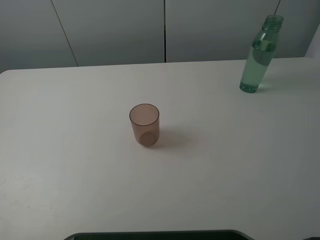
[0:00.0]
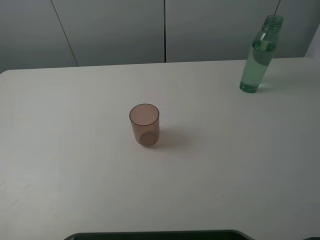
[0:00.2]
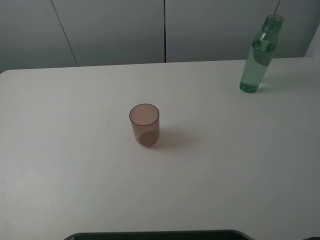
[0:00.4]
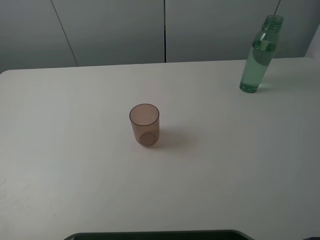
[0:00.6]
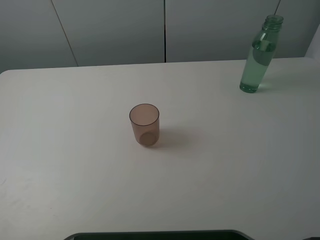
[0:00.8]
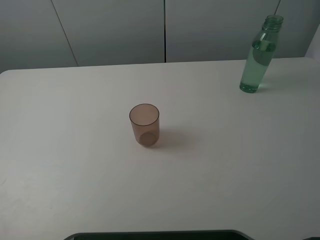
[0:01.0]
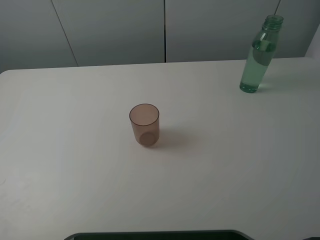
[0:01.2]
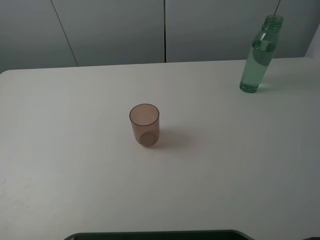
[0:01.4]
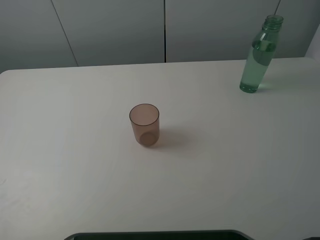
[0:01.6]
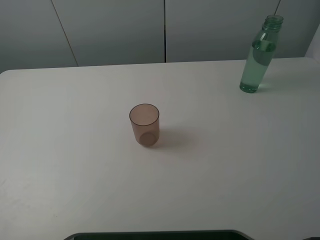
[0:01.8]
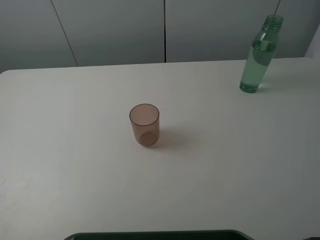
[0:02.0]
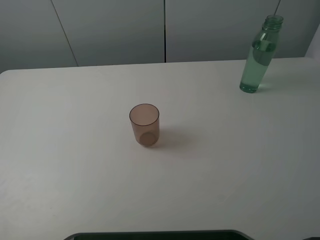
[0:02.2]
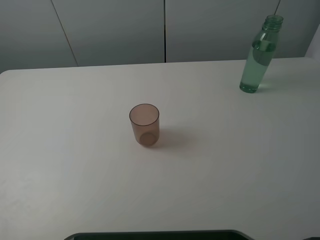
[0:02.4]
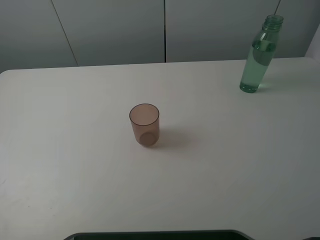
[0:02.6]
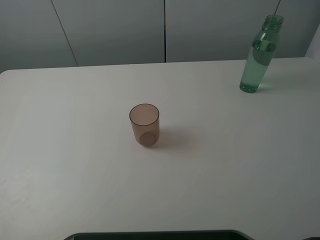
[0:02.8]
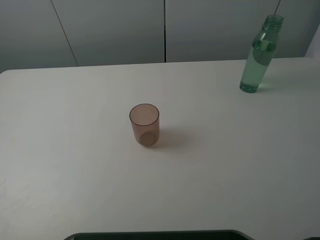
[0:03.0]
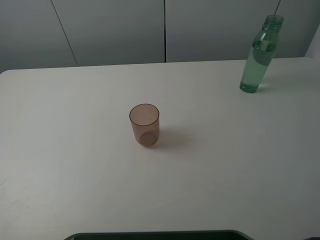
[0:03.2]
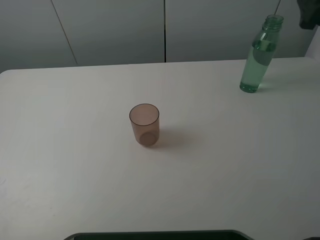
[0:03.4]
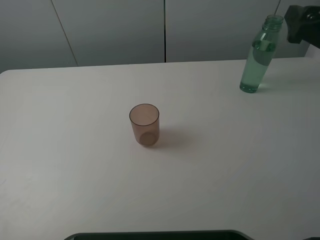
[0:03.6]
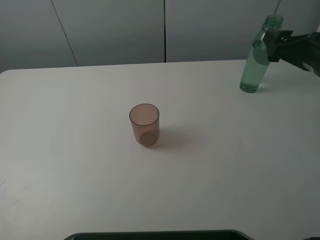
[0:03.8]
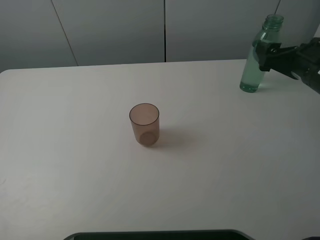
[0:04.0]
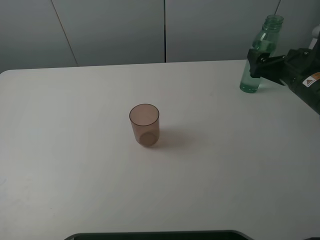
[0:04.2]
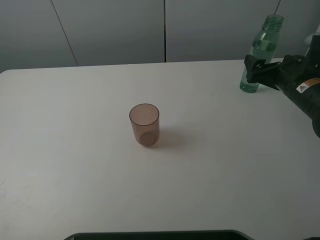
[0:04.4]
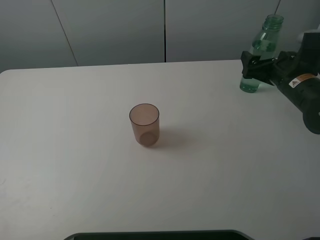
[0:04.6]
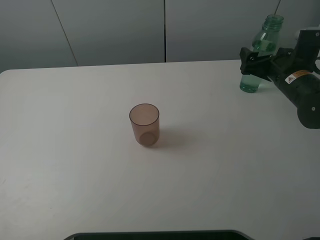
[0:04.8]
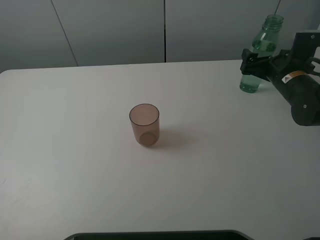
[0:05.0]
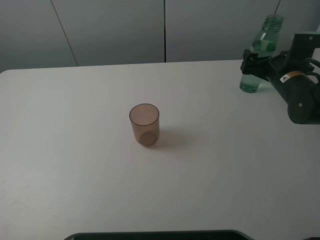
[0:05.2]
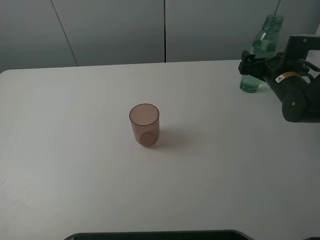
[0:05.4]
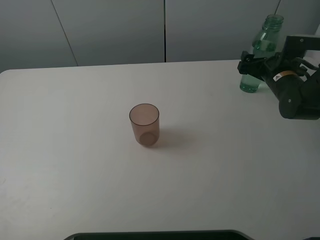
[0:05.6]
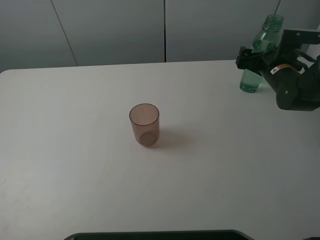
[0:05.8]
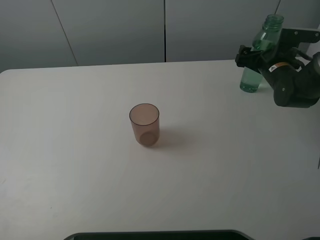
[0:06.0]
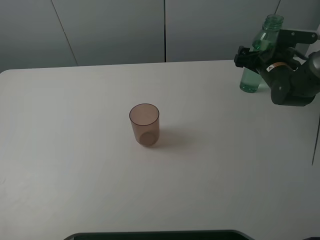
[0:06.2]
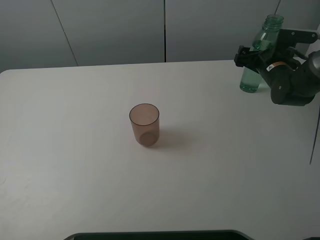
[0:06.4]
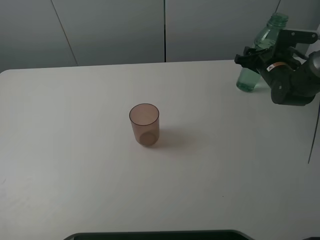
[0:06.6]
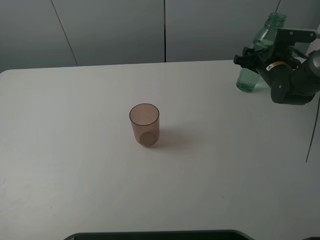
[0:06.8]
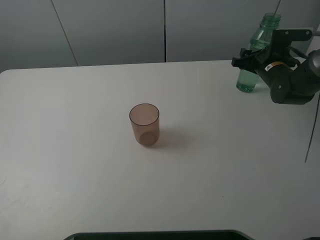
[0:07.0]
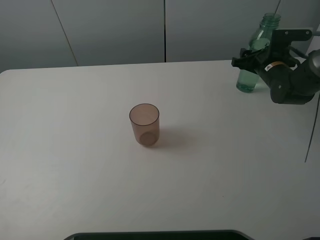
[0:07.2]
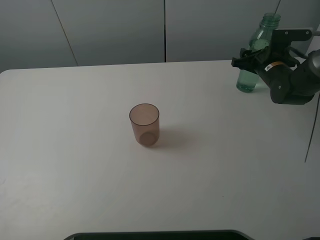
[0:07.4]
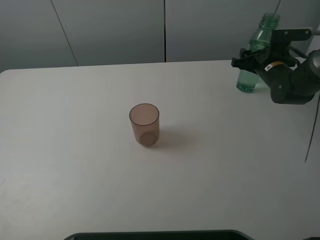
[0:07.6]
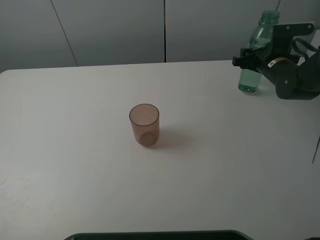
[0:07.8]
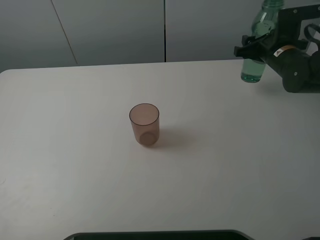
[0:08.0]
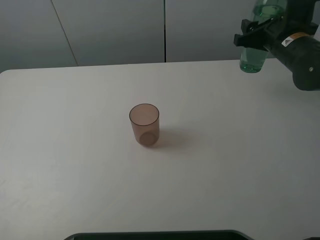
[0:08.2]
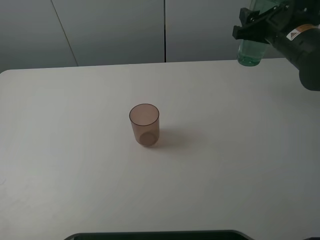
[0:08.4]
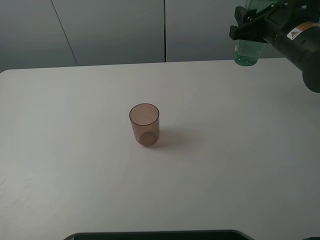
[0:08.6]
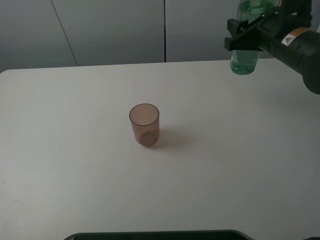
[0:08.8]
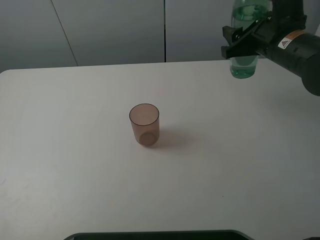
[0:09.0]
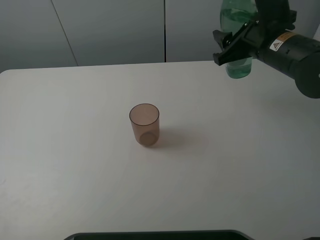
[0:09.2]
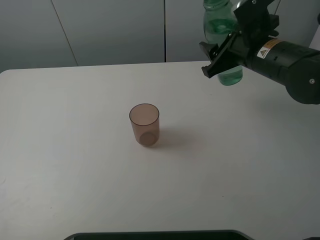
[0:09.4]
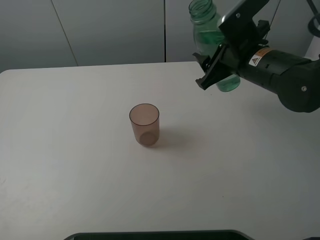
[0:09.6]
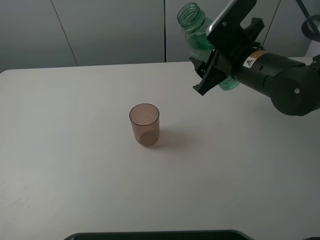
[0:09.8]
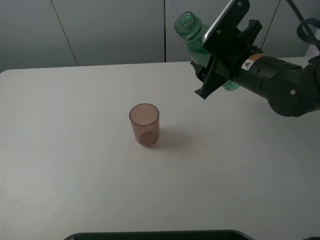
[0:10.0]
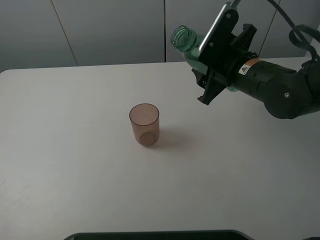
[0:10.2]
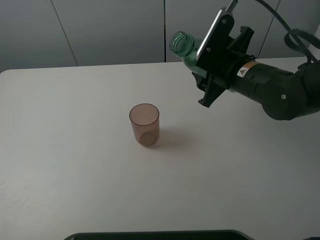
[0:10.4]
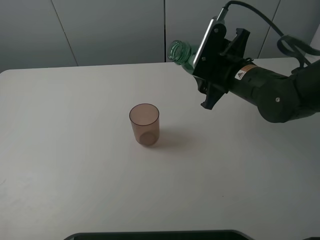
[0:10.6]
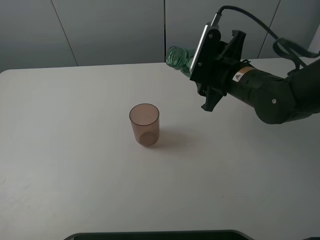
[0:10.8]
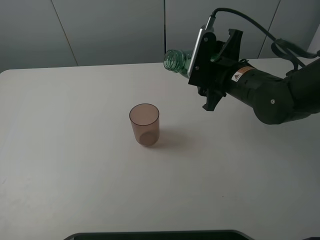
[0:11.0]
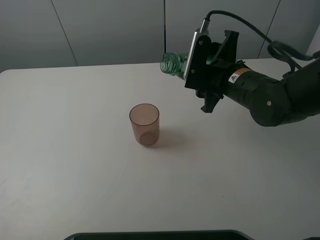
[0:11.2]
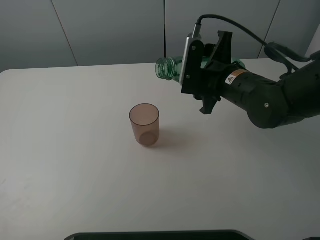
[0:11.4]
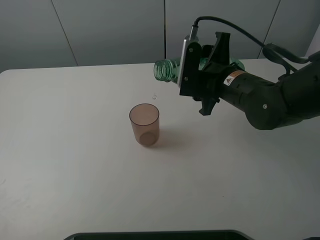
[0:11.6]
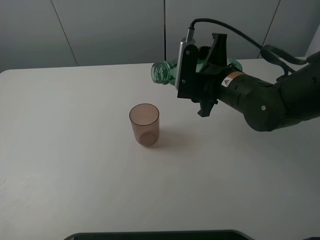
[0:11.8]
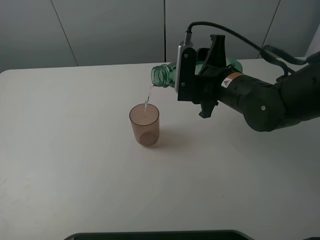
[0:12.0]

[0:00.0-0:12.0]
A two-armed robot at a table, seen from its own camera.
Task of the whole recording: pick up the bottle filled with water and pour it into the pink cup.
Step, 0:00.0 to 0:06.6: Grasp the green bottle with the right gripper.
0:00.0 to 0:01.6: Neither gripper changes place.
0:03.0 to 0:04.4: The right gripper heads downward and forward, covering approximately 20 cm.
0:04.4 to 0:06.0: The right gripper goes approximately 10 cm forward.
0:06.0 to 0:07.6: The right gripper closes up.
0:07.6 to 0:09.0: The right gripper moves upward, backward and to the left, roughly 15 cm.
0:09.0 to 0:10.4: The right gripper moves to the left, about 5 cm.

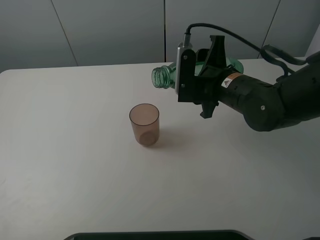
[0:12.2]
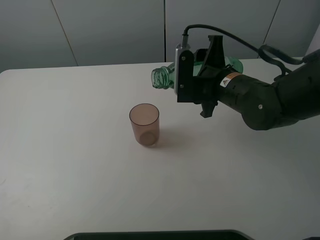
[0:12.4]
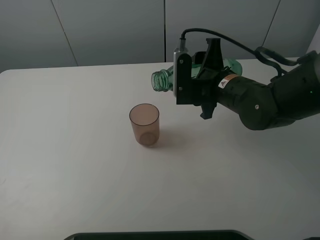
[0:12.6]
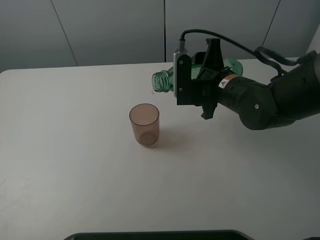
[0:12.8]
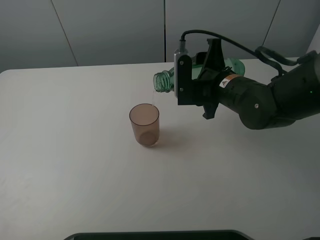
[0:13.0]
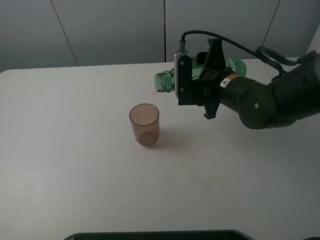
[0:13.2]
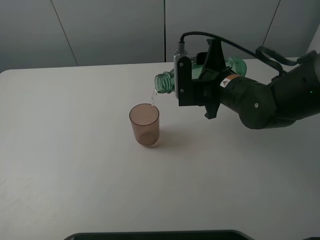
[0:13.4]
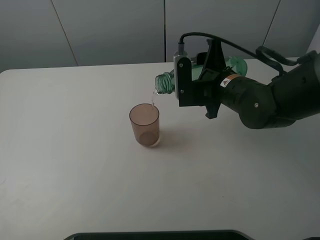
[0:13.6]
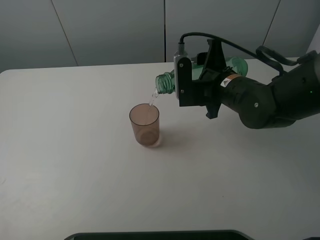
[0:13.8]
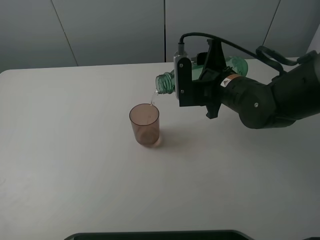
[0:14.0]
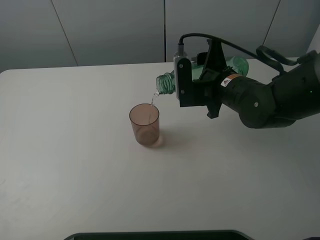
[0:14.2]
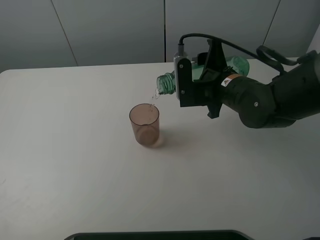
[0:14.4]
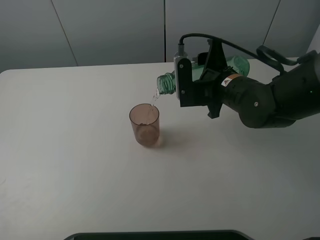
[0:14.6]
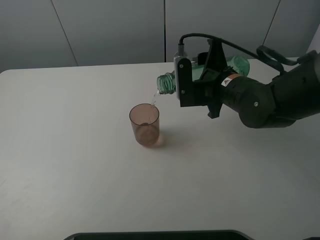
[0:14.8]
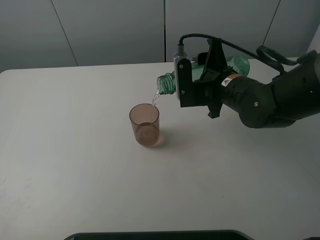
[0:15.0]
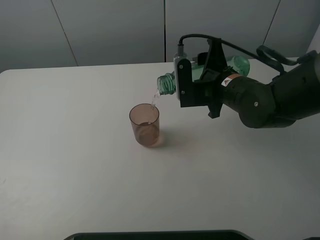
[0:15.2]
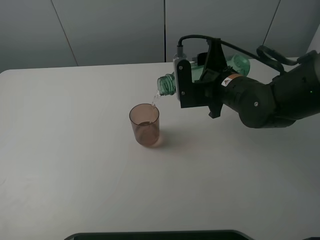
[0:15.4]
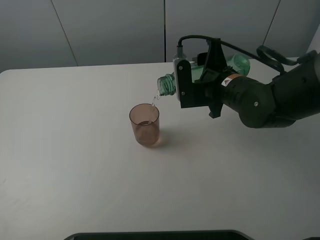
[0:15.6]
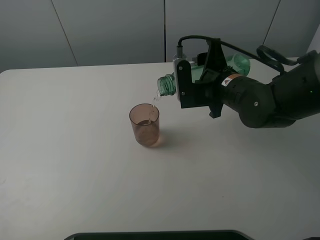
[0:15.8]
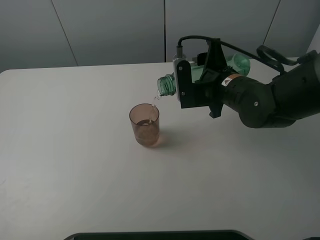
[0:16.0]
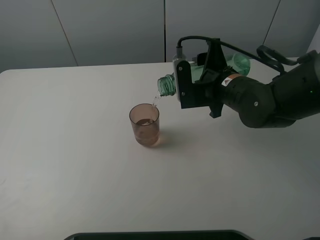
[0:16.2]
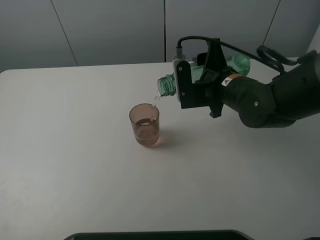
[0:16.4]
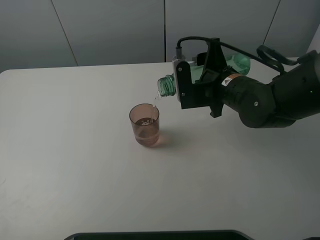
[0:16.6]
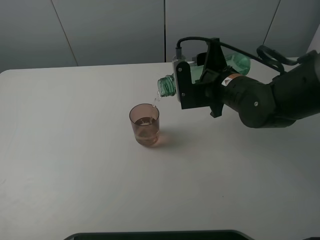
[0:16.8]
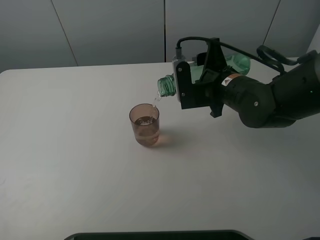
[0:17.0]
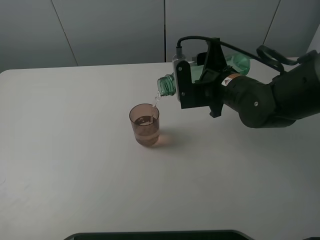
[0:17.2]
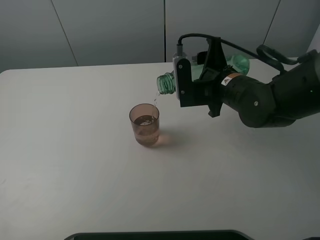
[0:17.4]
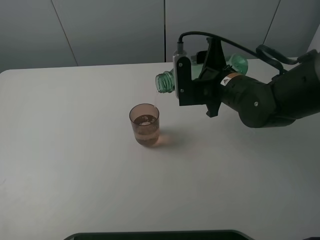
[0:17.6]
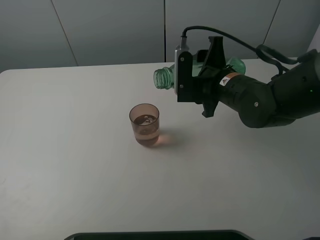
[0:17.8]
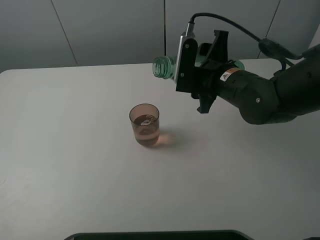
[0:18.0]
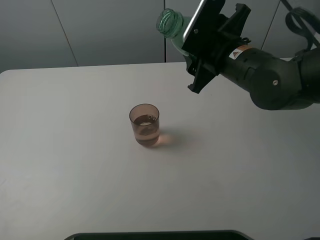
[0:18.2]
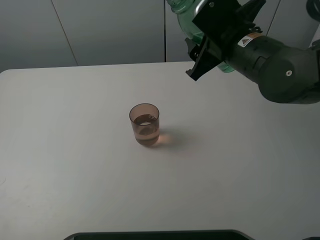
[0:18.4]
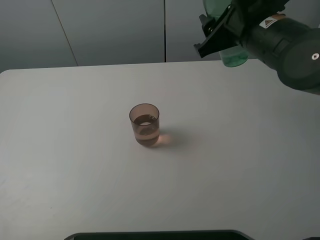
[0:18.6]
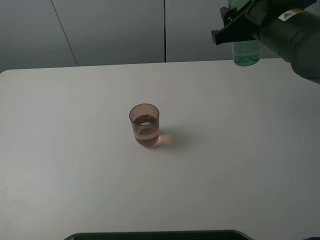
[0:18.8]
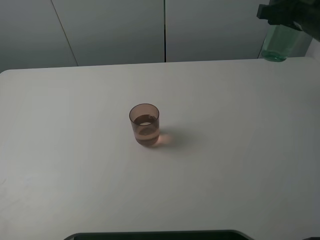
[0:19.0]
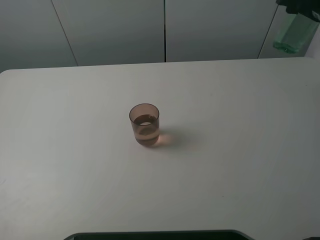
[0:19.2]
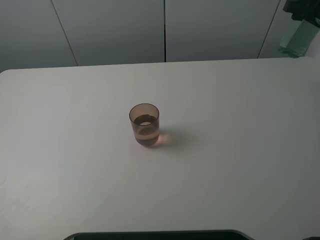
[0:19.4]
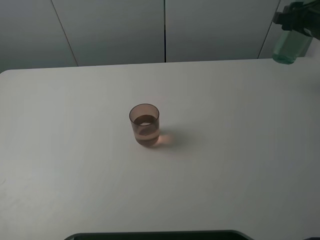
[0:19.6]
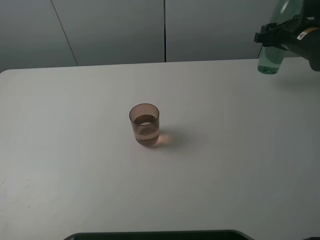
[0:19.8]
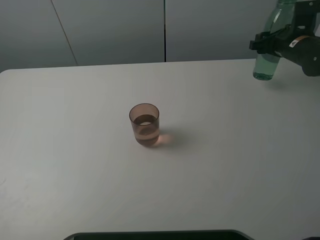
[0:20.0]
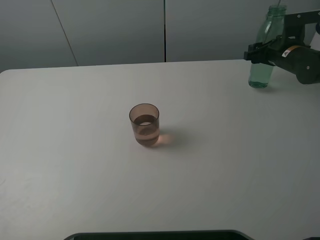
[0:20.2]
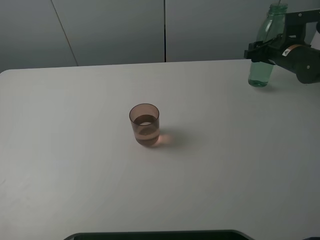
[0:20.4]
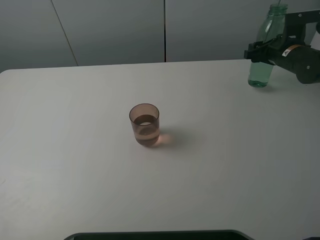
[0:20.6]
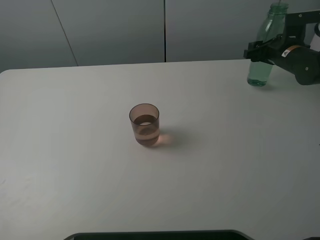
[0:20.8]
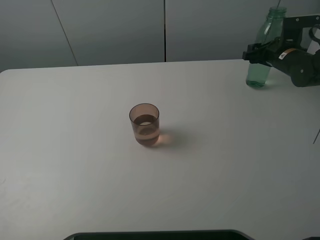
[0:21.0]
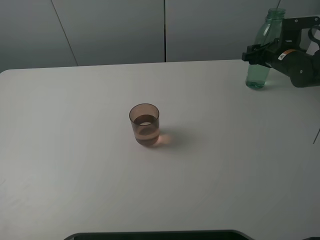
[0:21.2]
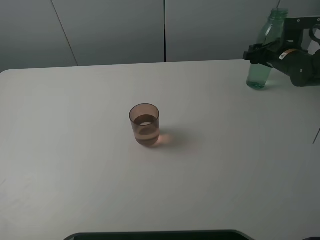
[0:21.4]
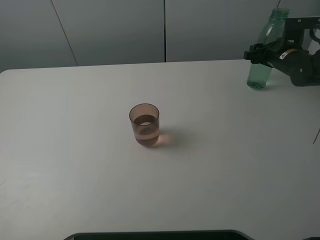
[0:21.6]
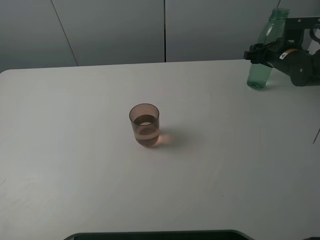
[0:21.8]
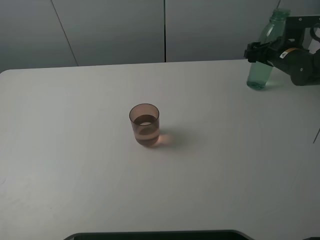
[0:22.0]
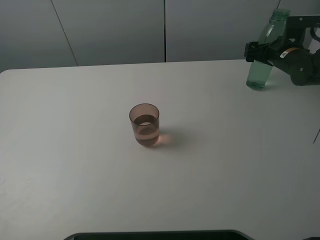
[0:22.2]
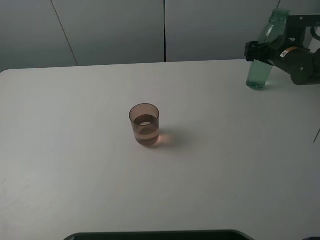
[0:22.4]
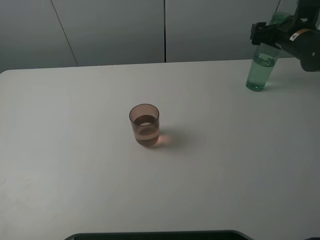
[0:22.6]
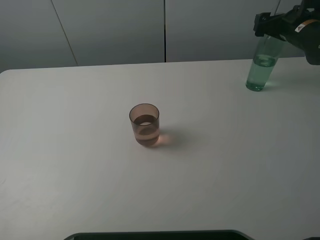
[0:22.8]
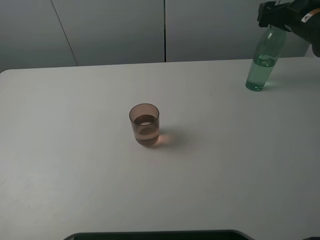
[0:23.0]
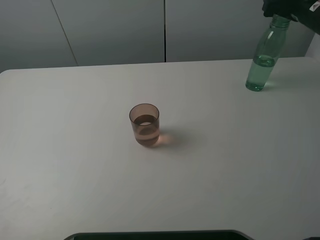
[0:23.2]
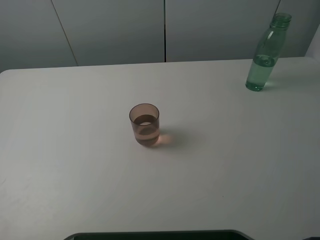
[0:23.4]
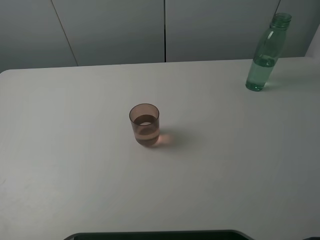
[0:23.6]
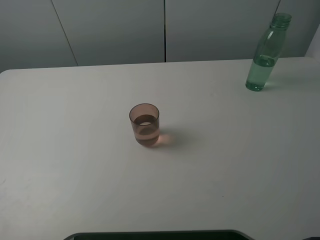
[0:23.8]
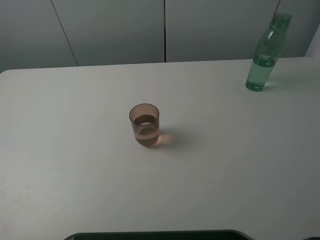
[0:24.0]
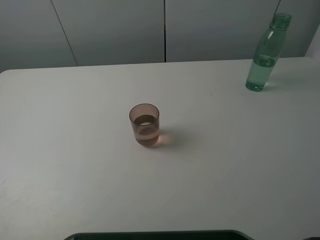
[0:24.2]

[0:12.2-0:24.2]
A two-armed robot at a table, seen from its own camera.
Task of the whole recording: pick up the bottle filled with water and pour it into the pink cup.
Step, 0:12.2 to 0:18.0: Pour water from green bottle to pink cup with the right gripper.
Step, 0:18.2 to 0:22.8: Place the green bottle with the right gripper.
0:12.2 to 0:13.8: The grippers make only small movements.
0:13.8 to 0:15.2: Both grippers stay put.
0:15.2 to 0:16.6: Neither gripper changes place.
0:16.6 to 0:18.2: The right gripper shifts roughly 5 cm upward.
0:18.2 to 0:19.8: The right gripper shifts some 25 cm to the right and forward.
0:19.8 to 0:21.2: The right gripper is displaced downward by some 5 cm.
0:21.2 to 0:22.6: The right gripper is displaced upward by roughly 5 cm, and opens up.
0:22.6 to 0:24.2: The right gripper travels upward and backward by approximately 25 cm.
